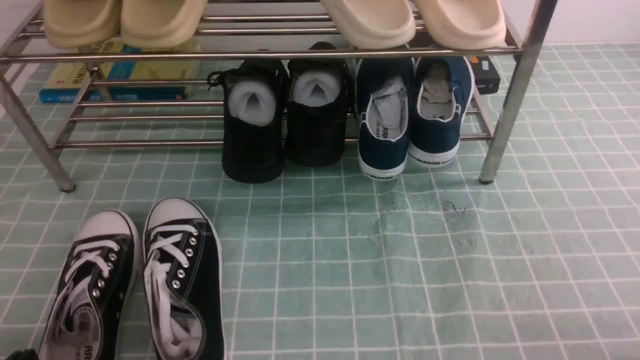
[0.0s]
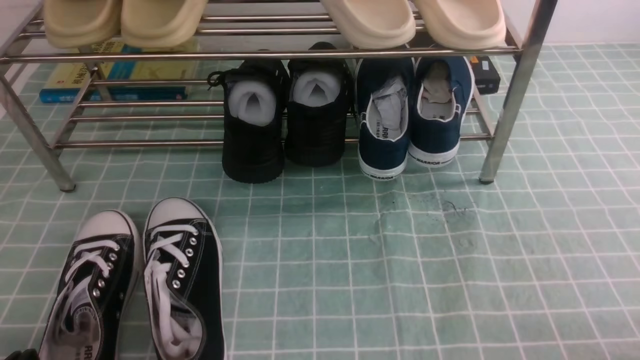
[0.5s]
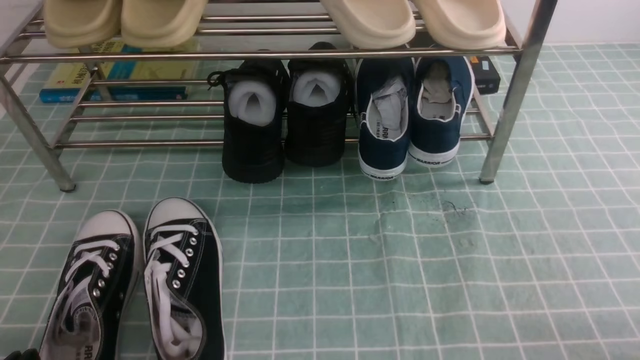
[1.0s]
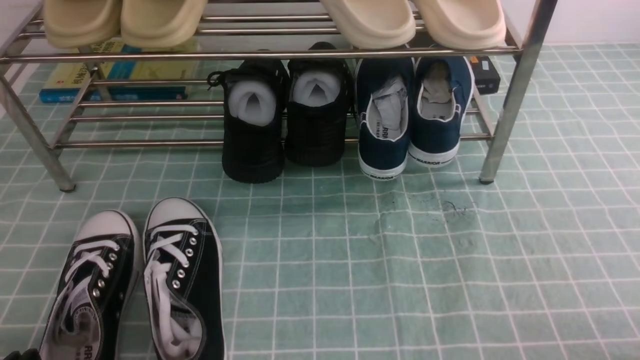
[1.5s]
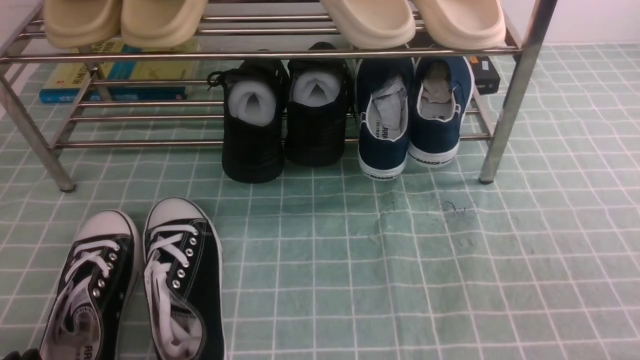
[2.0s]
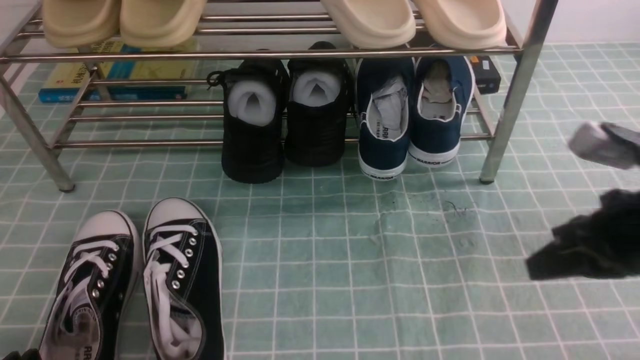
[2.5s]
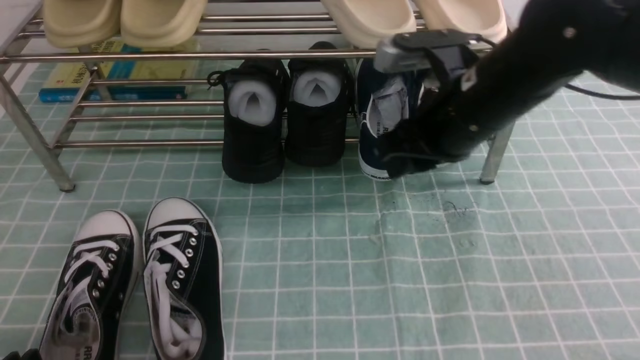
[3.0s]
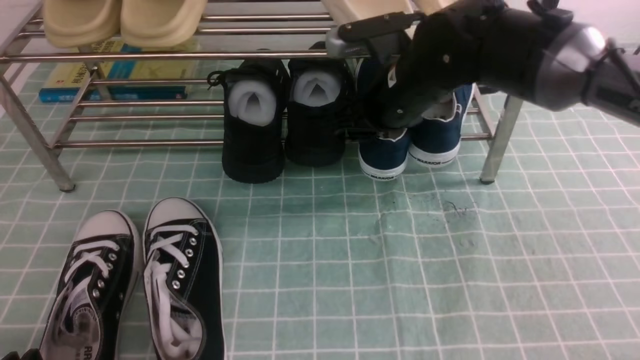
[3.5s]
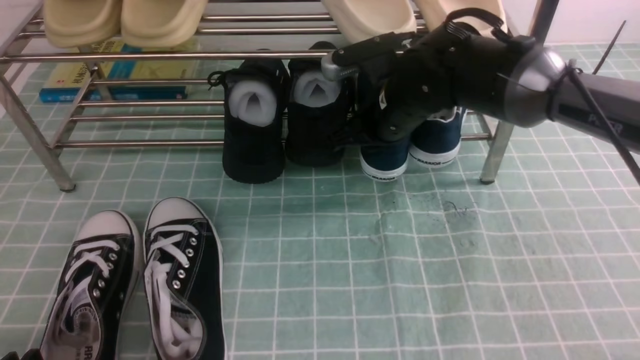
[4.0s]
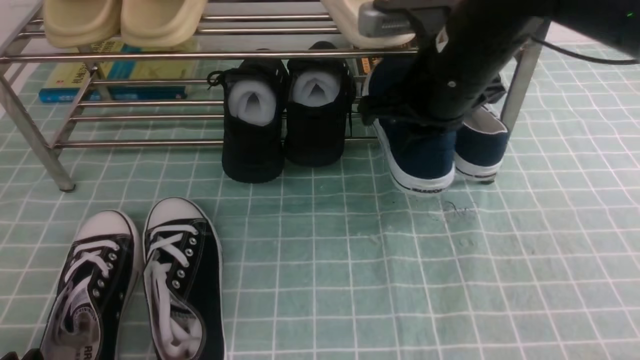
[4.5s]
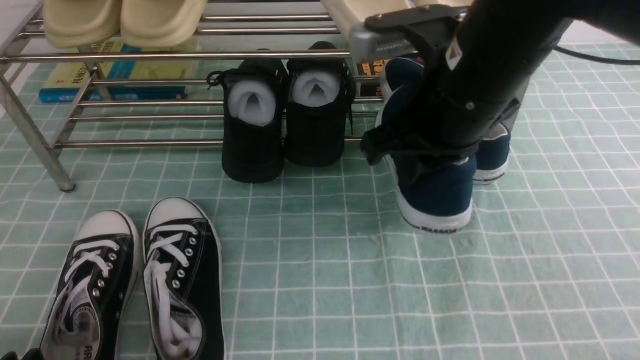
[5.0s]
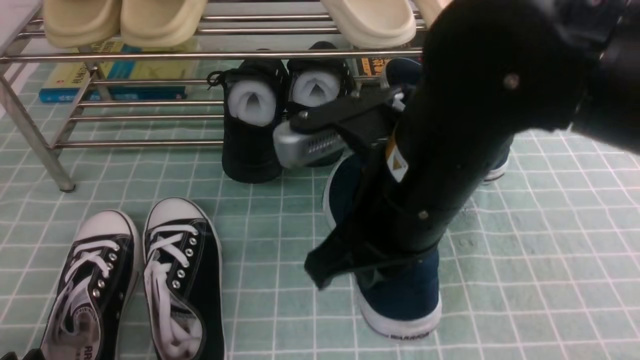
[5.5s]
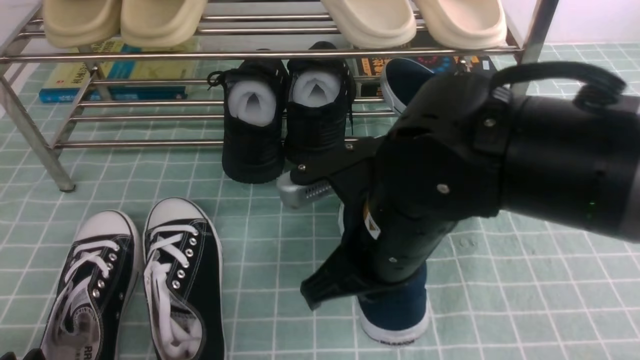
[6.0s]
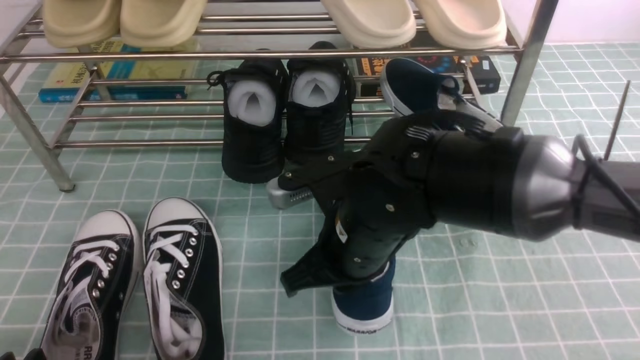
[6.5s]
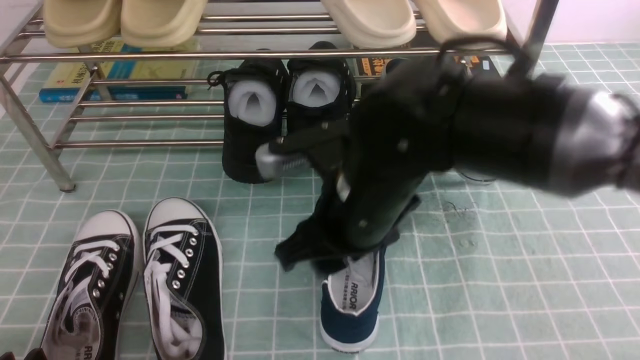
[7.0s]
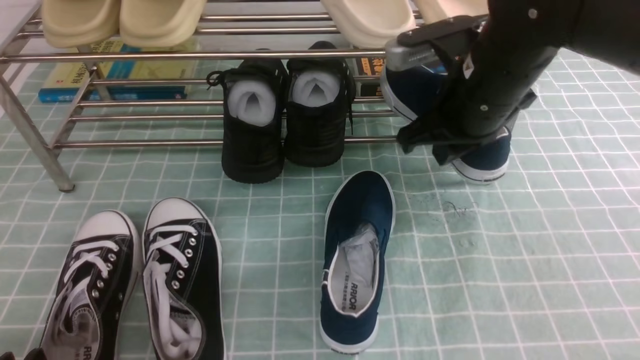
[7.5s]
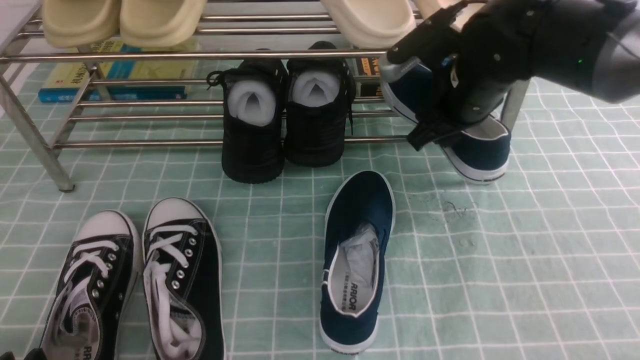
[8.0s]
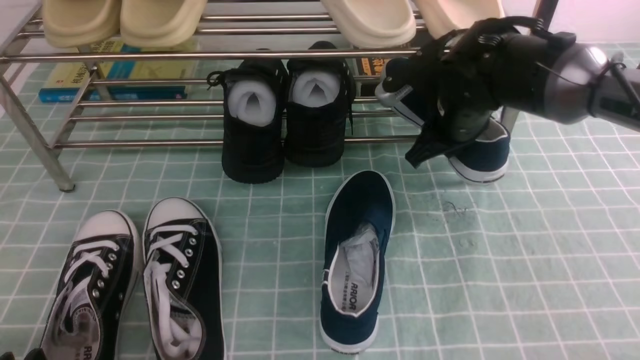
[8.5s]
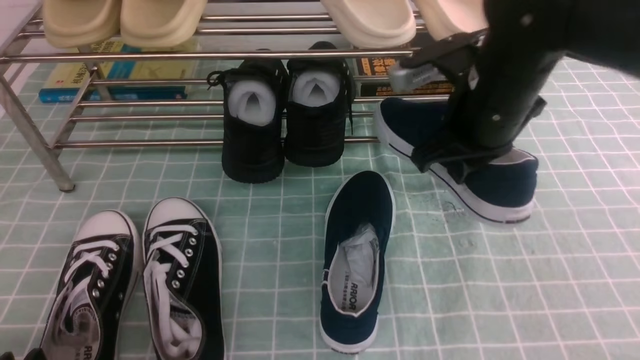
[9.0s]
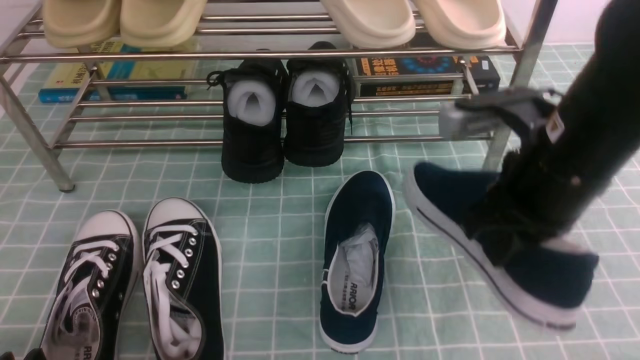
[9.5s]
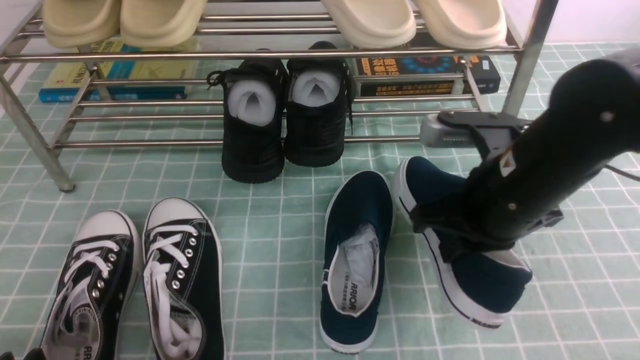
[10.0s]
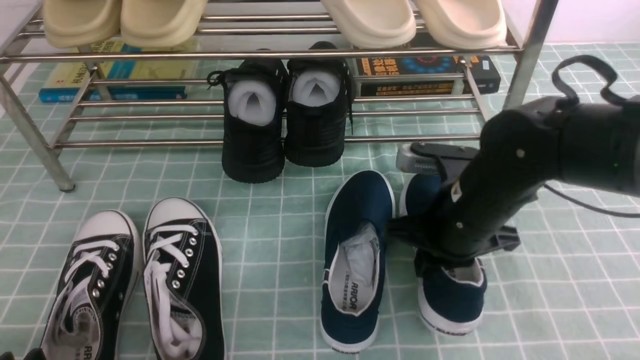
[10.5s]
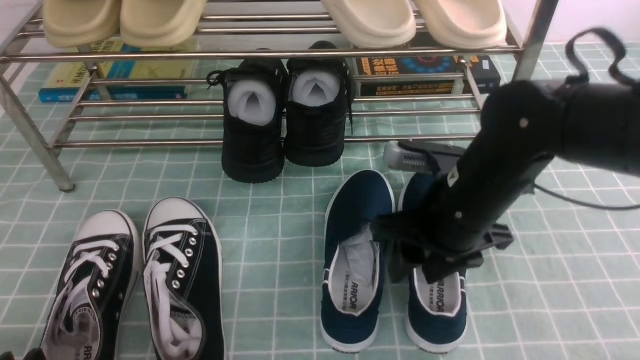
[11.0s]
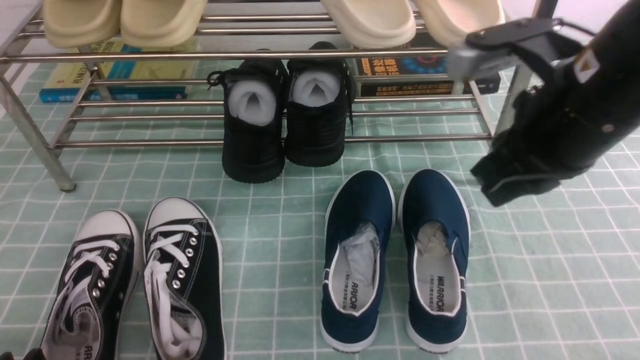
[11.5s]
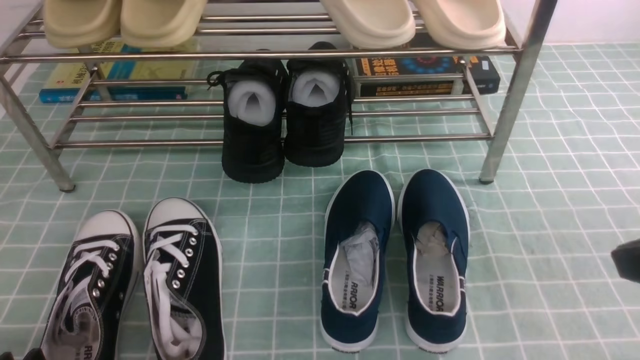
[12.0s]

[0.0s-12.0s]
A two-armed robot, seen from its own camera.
Step, 0.0s to 4.0s: use the right arm to clamp a shoe on the right side of the shoe rack.
Step, 4.5s to 6.5s: use the right arm to take out the clamped shoe from the shoe rack and put it down.
Step, 7.0s to 8.5s: use the right arm to clamp a shoe on the right side of the shoe rack.
Step, 9.0s to 10.5s: use the right arm to take out the clamped shoe from the shoe rack and put it down.
2.0s to 4.0s: The right gripper is displaced forward and to the left by about 40 cm, and opens, then closes once more.
4.0s to 6.0s: The right gripper is displaced backward by roughly 20 cm.
6.0s to 8.0s: The right gripper travels forward and to the right by some 20 cm, and opens up.
8.0s to 10.0s: The right gripper moves backward, roughly 10 cm, and closes up.
10.0s to 12.0s: The right gripper goes approximately 20 cm backward, to the right and upward, and opens, then closes once more.

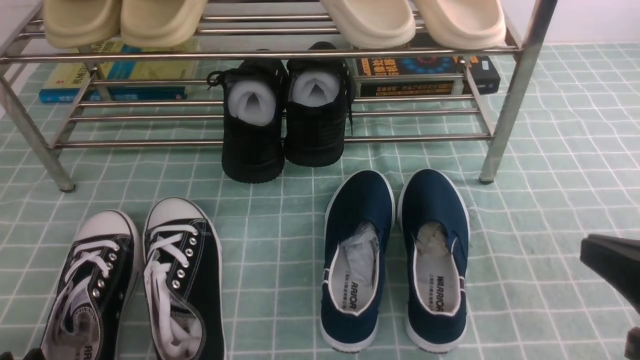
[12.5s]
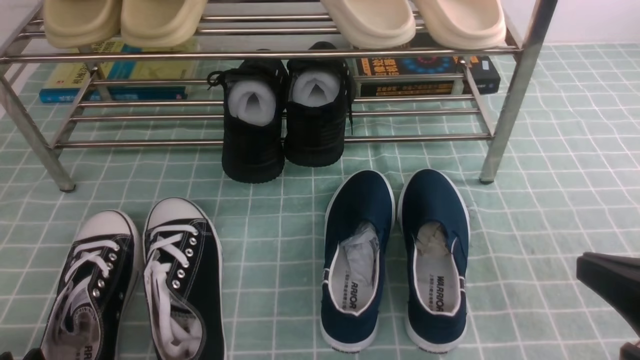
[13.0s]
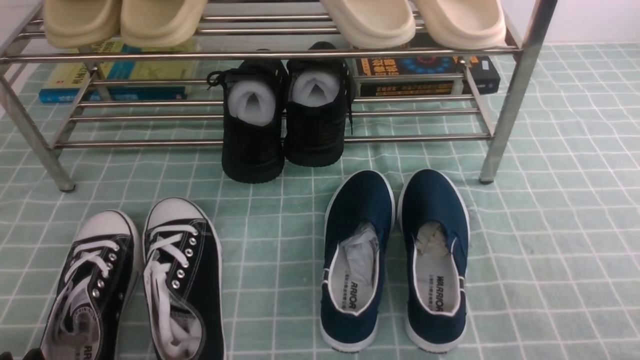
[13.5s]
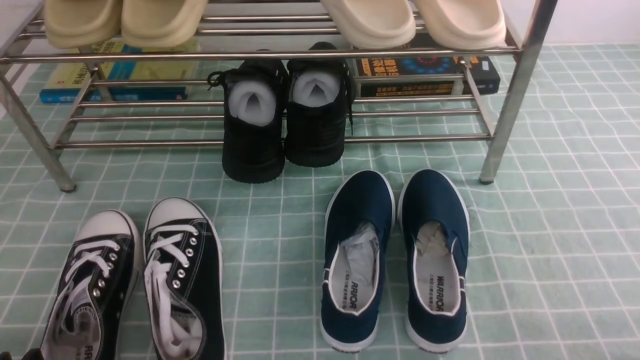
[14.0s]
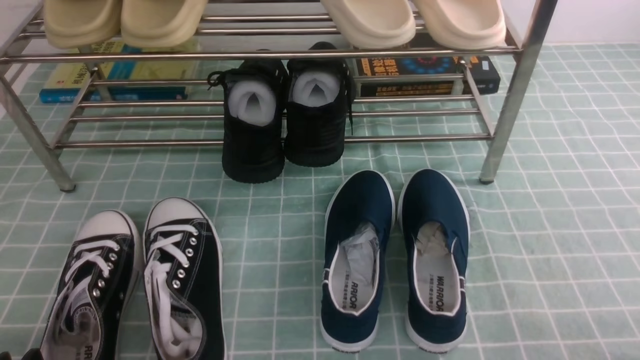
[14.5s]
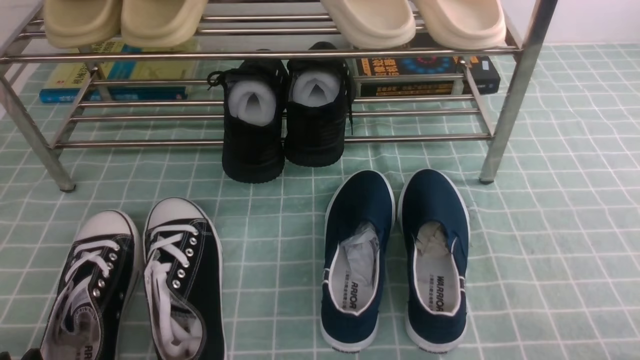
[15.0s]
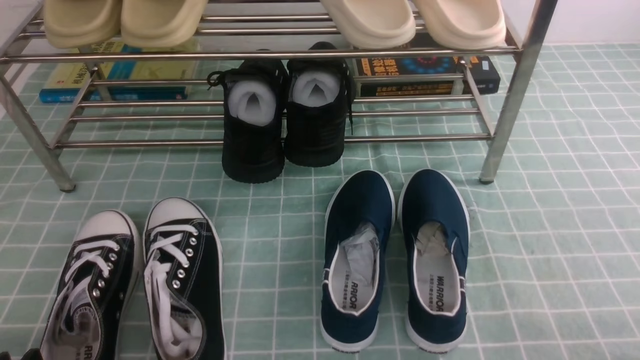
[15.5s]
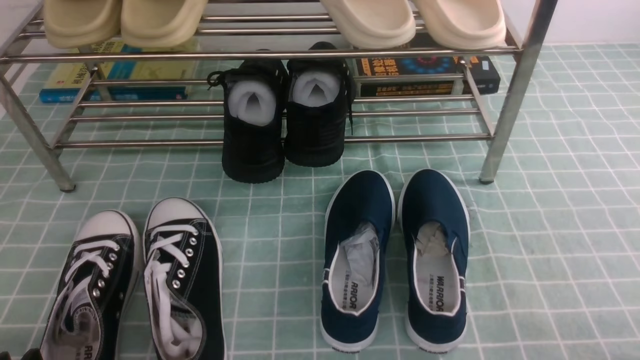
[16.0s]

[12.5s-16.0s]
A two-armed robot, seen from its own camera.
12.5s to 14.5s: The right gripper is displaced downward, to the right and backward by about 15 cm.
14.5s to 16.0s: Both grippers stay about where they are.
